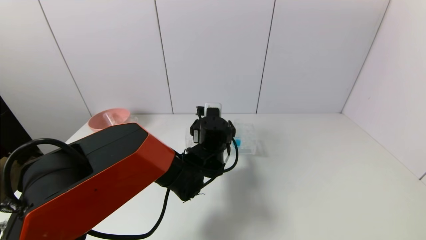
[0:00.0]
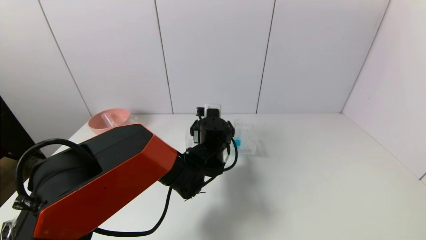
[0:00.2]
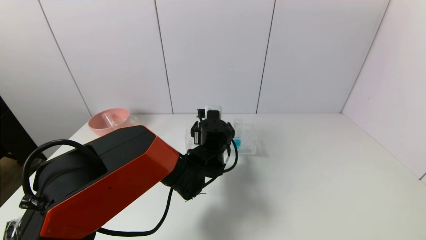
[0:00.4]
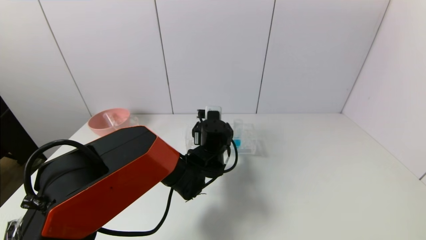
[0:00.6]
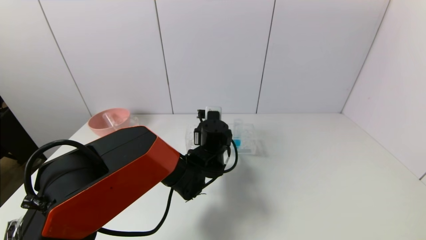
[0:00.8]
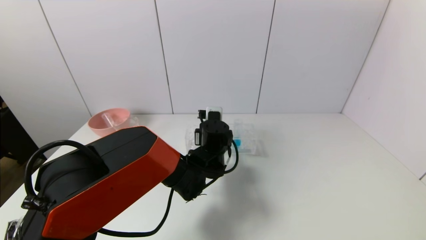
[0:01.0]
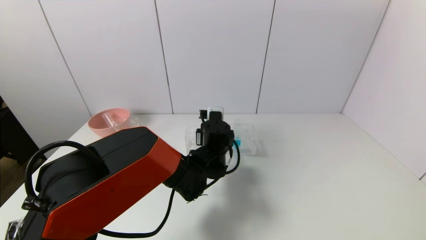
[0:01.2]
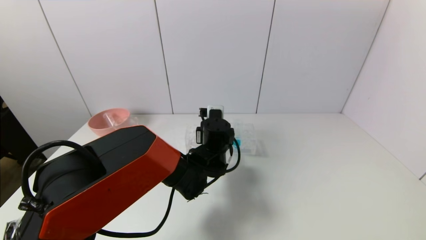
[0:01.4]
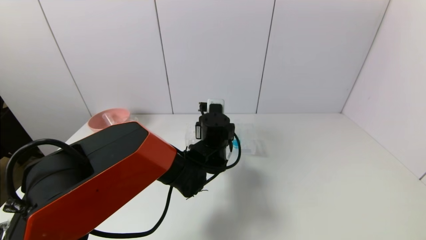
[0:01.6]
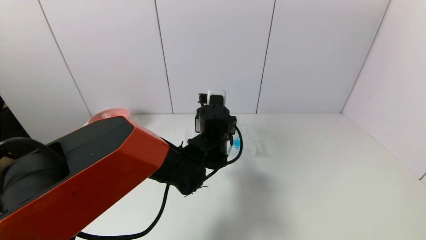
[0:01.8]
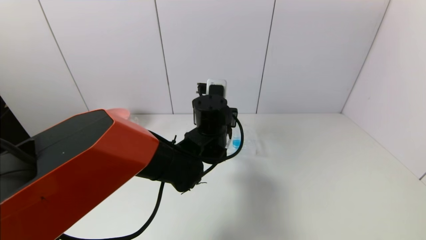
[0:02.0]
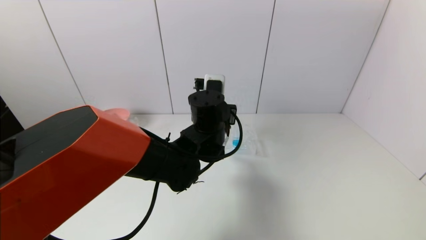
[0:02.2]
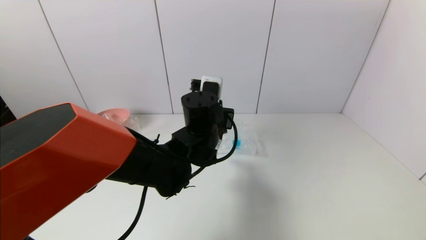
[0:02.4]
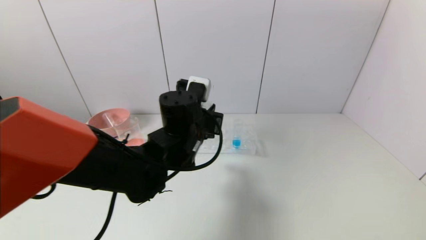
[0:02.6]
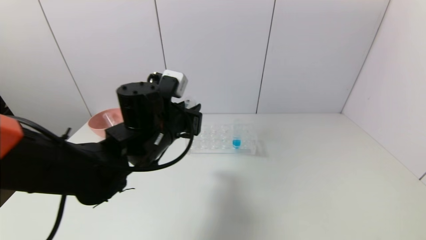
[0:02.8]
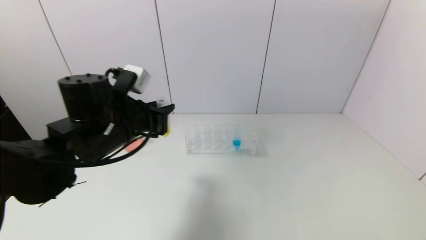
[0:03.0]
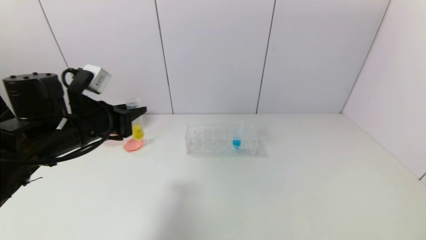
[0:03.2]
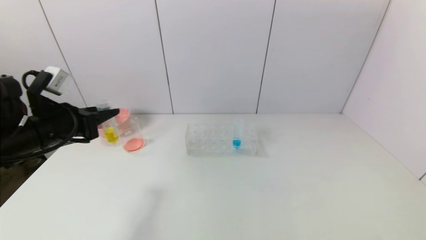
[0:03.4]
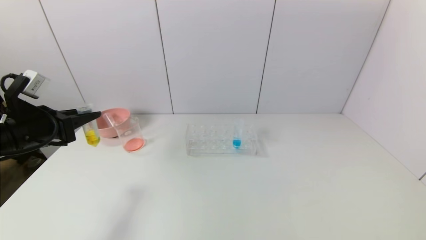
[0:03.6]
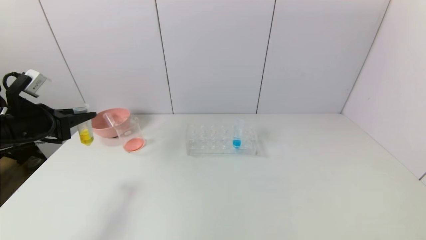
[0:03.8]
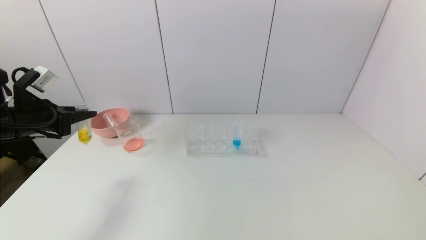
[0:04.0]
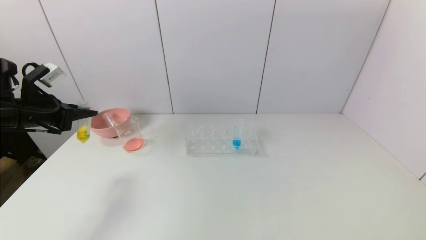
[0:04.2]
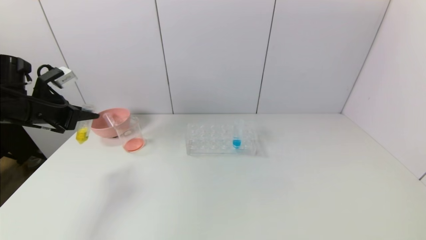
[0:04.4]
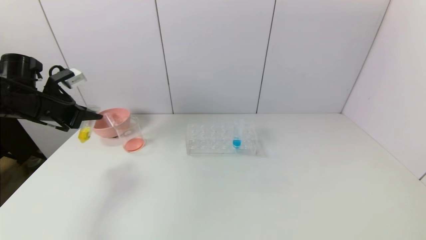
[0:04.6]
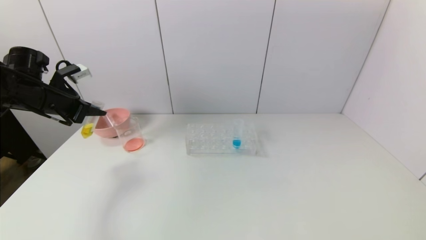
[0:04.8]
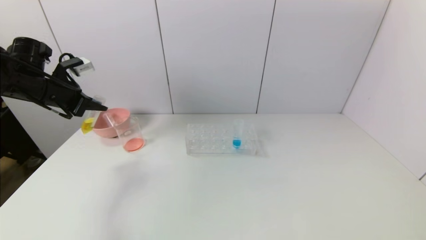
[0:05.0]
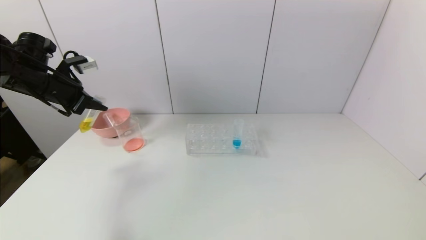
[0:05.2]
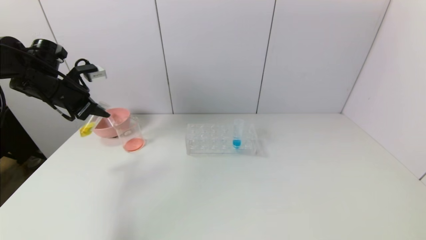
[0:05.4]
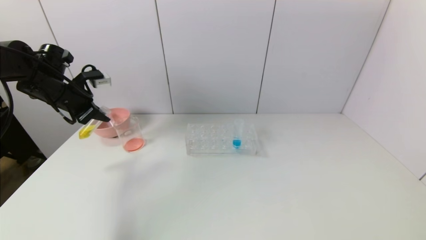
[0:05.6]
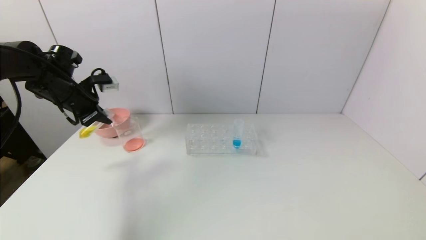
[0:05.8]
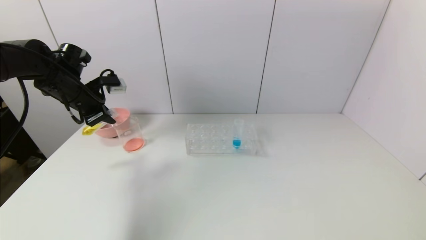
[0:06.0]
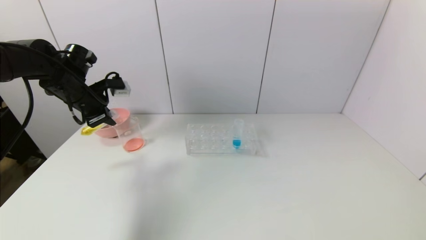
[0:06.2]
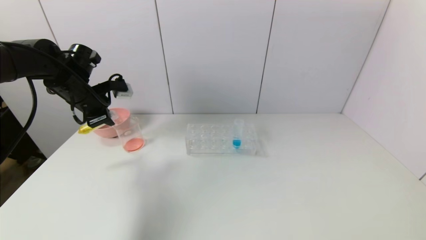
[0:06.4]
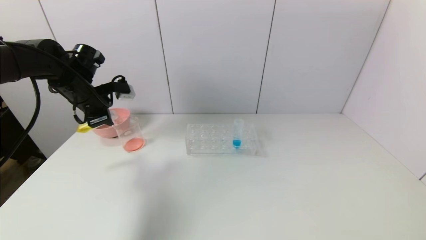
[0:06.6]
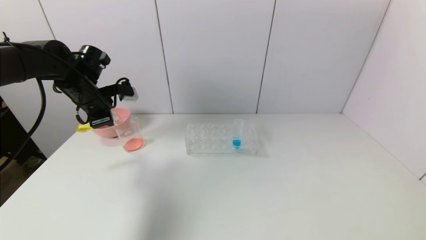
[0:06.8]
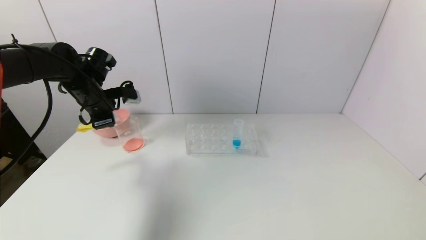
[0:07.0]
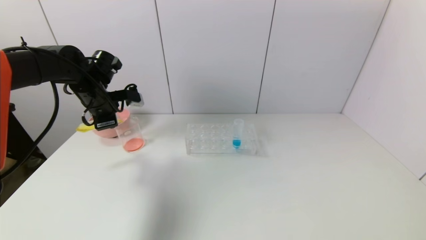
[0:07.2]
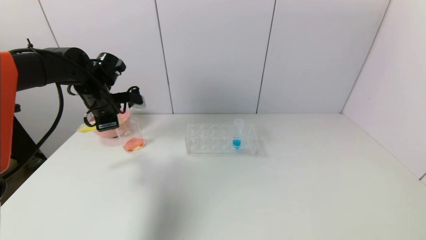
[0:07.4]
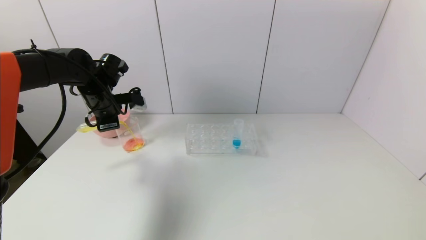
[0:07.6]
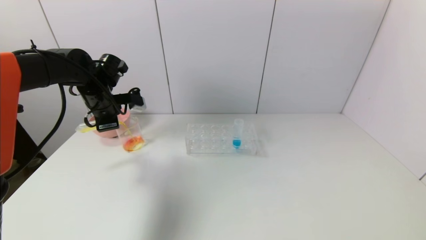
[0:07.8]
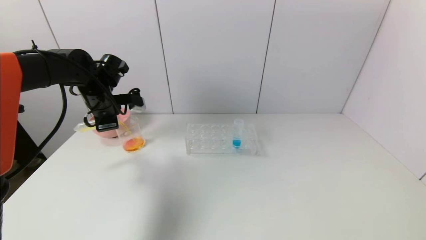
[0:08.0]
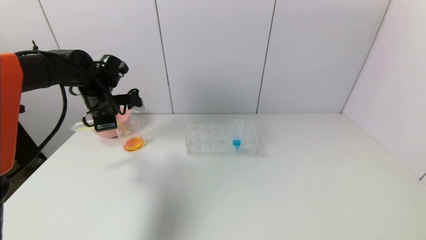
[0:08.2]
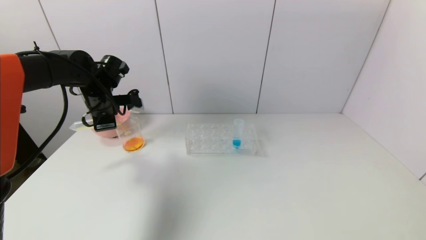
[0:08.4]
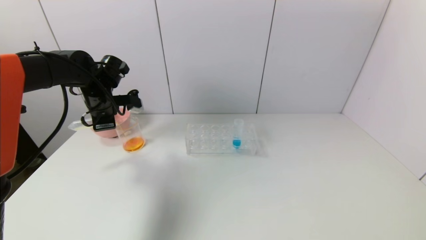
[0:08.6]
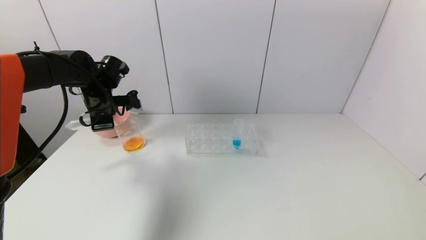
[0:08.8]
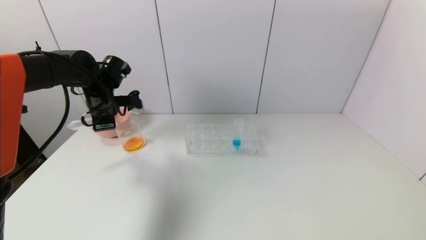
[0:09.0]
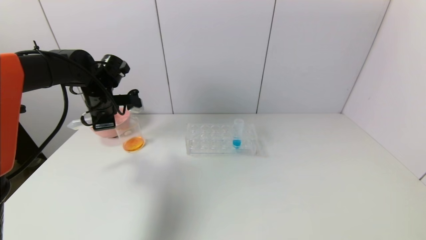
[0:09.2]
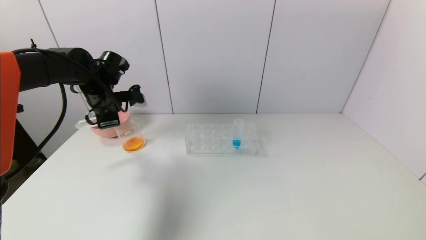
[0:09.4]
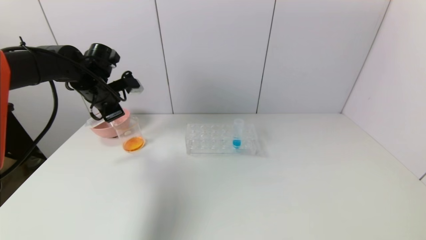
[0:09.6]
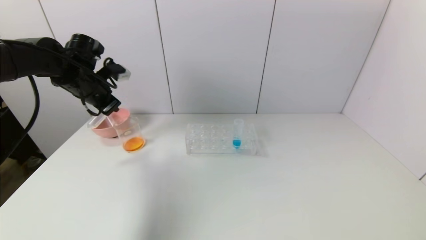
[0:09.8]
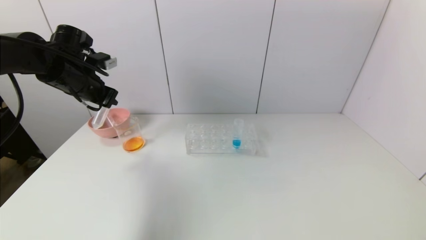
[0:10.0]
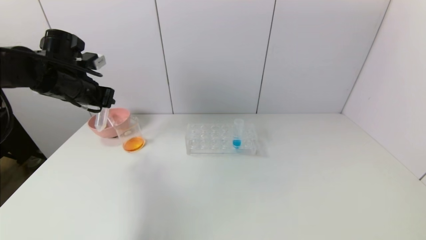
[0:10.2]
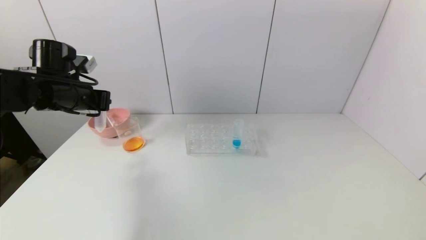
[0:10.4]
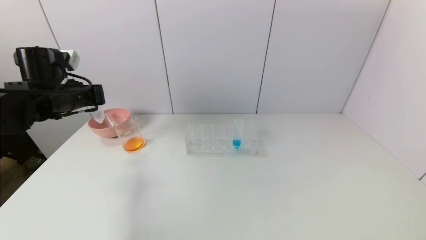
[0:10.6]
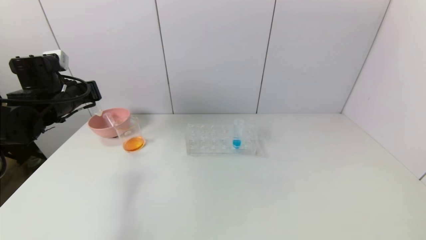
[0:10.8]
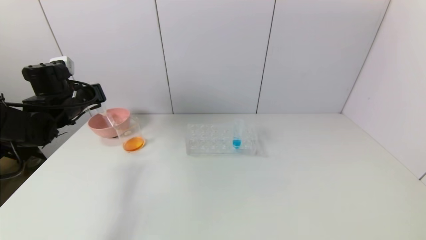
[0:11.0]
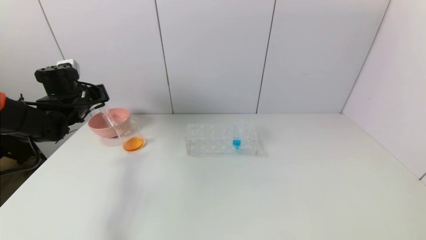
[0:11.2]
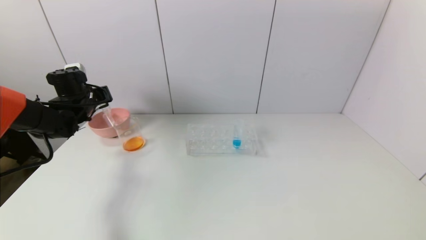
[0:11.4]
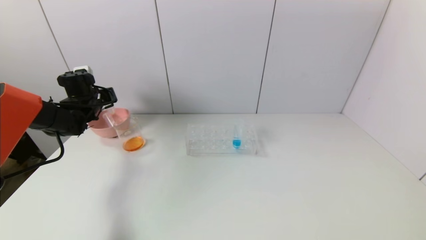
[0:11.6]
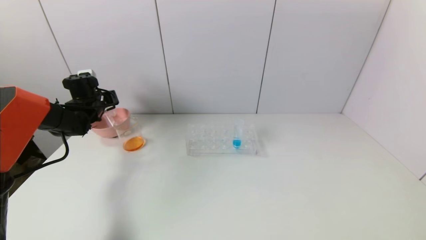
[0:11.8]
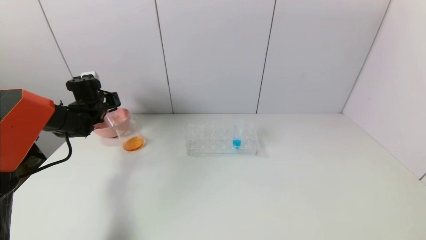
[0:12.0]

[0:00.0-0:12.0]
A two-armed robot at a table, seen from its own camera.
Task of the whole recording: pick up the test tube with yellow pigment and the test tube with red pigment by grippers and pour them into the beaker.
Step, 0:01.4 to 0:09.0: Pour the yellow reagent into the graduated cylinder with the left gripper.
0:00.0 to 0:01.6: The left gripper closes up.
0:01.6 to 0:03.0: The left gripper shifts some 20 cm to the left, upward and backward.
0:03.0 to 0:04.4: The left gripper travels to the left by about 20 cm.
0:04.4 to 0:06.0: The left gripper is displaced forward and to the right by roughly 10 cm.
0:06.0 to 0:07.6: The left gripper shifts roughly 5 cm to the right.
0:07.6 to 0:09.0: The grippers stay close to where they were, moving slightly.
0:09.0 to 0:10.4: The left gripper heads backward, covering approximately 5 cm.
0:10.4 to 0:12.0: The left gripper travels forward and downward by about 15 cm.

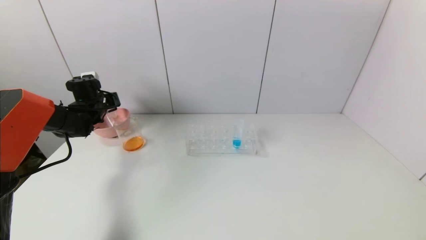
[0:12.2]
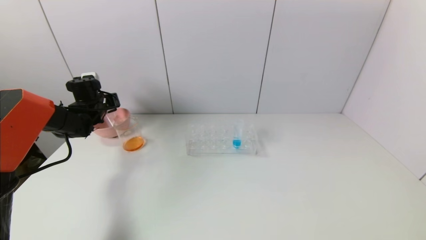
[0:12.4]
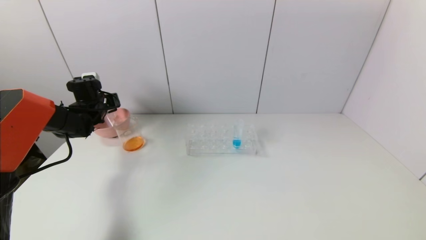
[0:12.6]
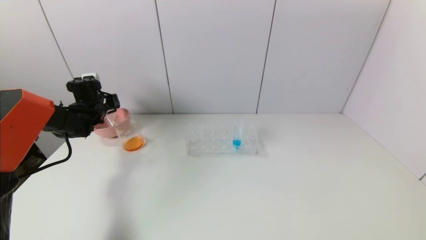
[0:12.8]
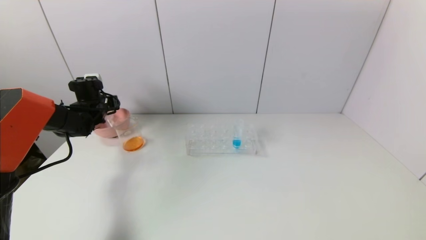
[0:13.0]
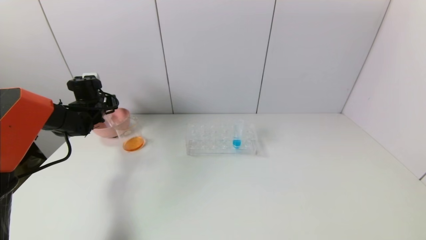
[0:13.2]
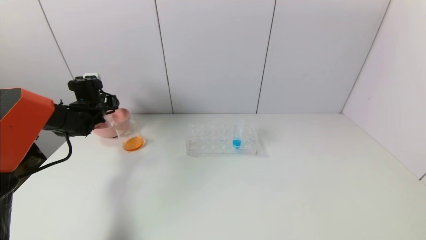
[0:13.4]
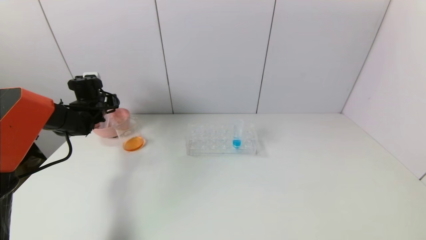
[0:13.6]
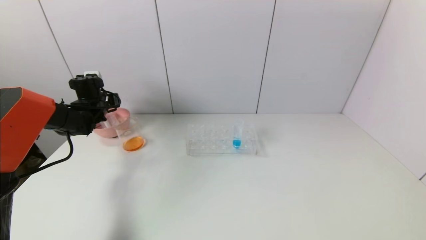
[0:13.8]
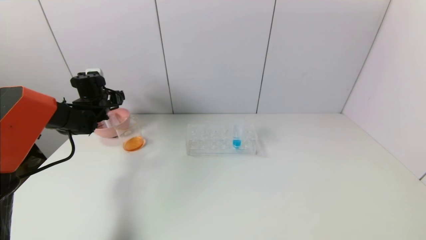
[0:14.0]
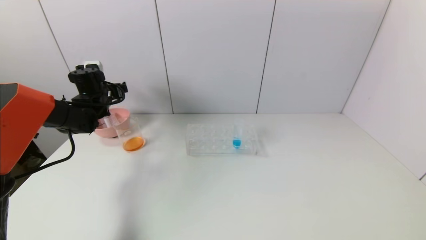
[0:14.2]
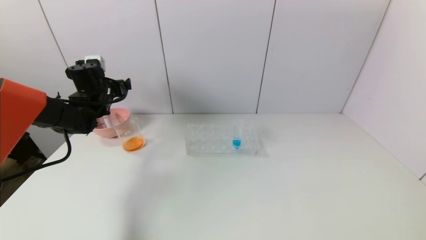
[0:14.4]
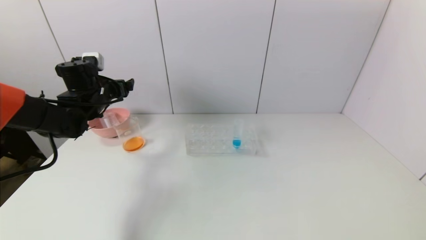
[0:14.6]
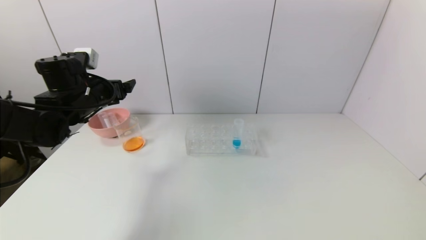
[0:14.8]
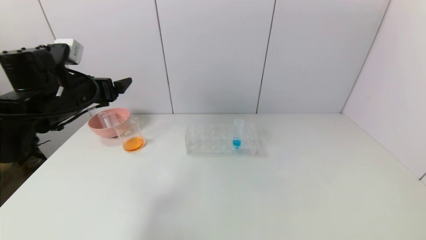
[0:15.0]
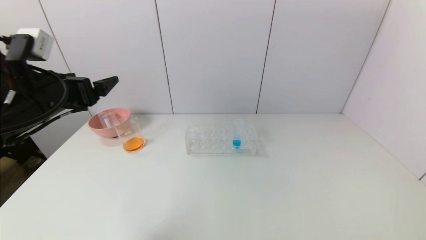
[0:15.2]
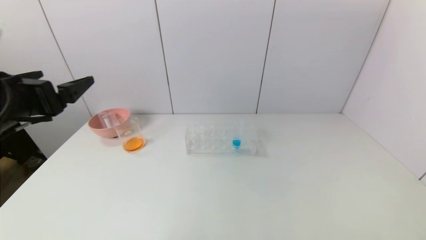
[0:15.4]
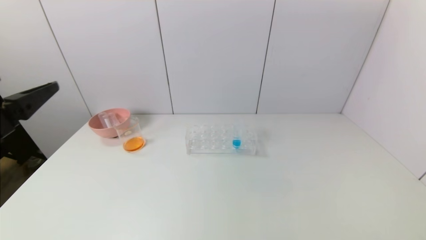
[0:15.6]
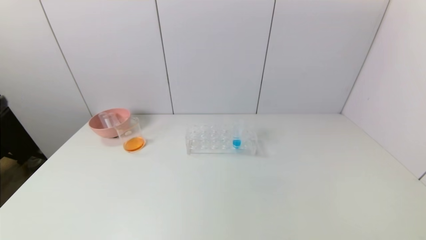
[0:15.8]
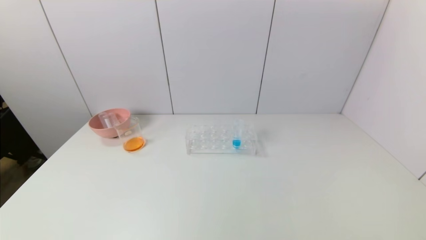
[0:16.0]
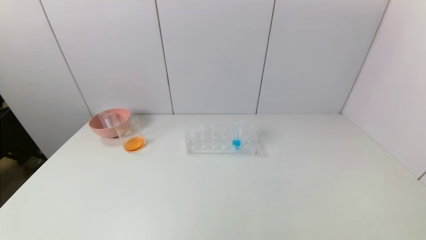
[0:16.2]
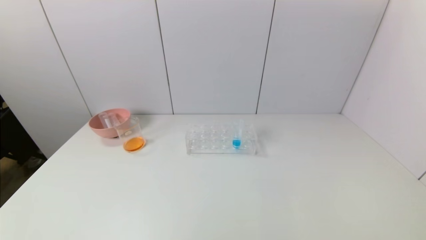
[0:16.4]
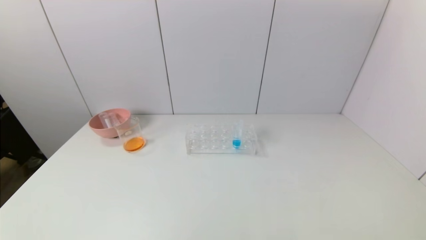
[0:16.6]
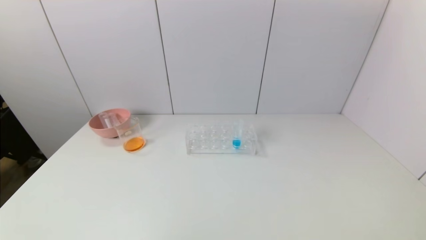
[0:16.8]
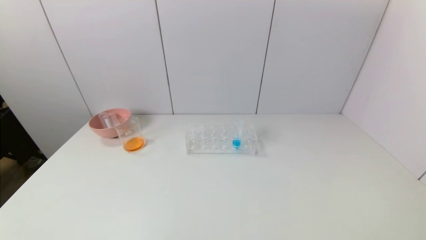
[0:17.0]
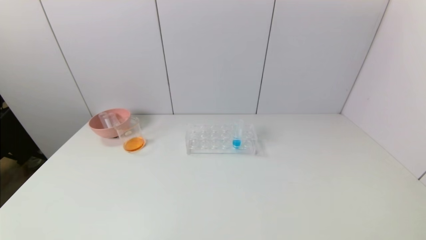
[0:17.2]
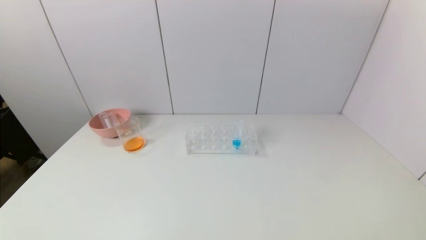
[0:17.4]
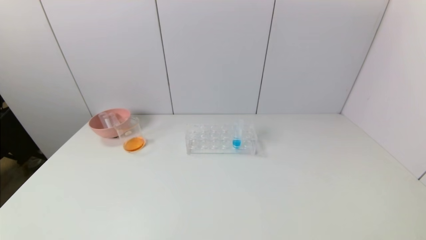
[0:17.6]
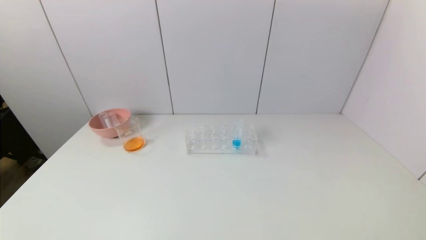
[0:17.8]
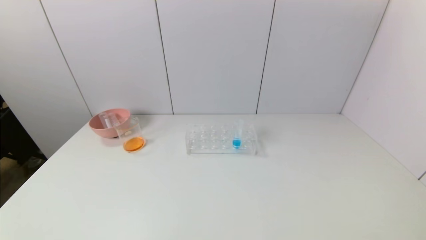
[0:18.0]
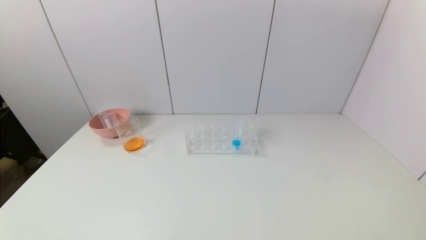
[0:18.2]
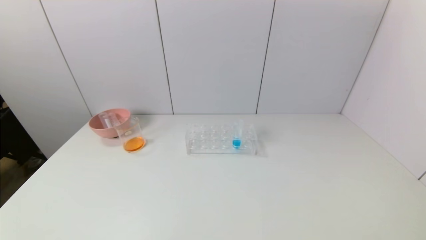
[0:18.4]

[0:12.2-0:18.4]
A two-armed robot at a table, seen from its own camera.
Task of the whole recording: pick up the test tube with yellow pigment and the test tube with red pigment by grippers and pour them into the beaker.
0:12.2 to 0:13.8: The left gripper opens.
0:13.8 to 0:15.4: The left gripper goes about 30 cm backward and upward.
0:15.4 to 0:16.8: The left gripper is displaced backward and downward by roughly 25 cm.
